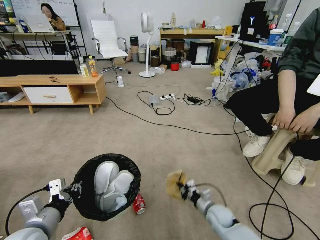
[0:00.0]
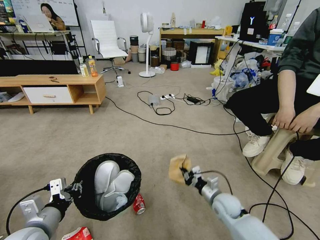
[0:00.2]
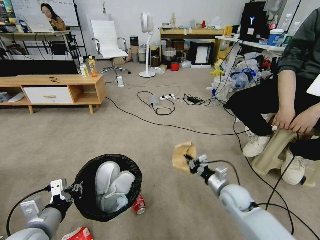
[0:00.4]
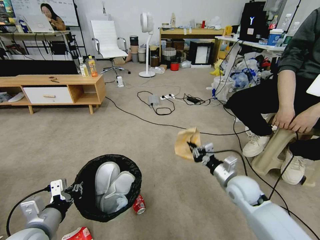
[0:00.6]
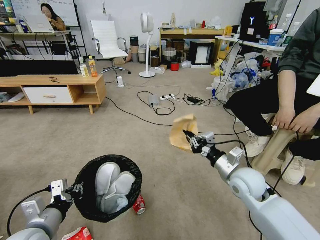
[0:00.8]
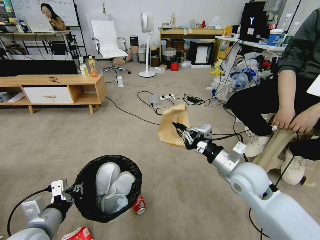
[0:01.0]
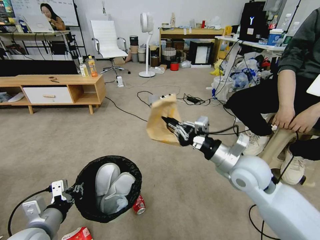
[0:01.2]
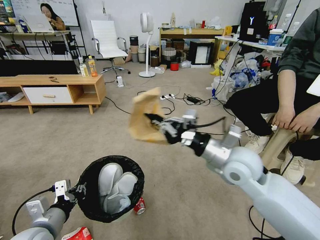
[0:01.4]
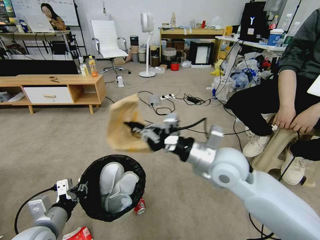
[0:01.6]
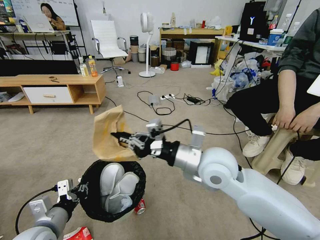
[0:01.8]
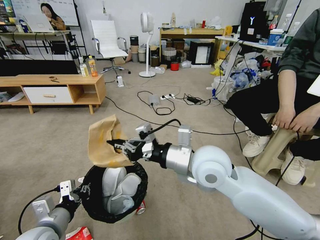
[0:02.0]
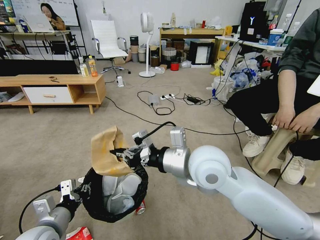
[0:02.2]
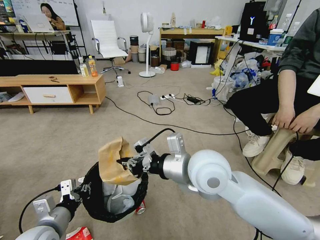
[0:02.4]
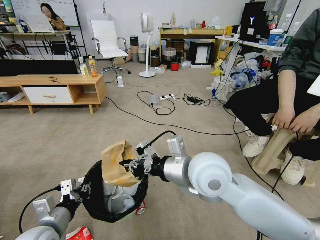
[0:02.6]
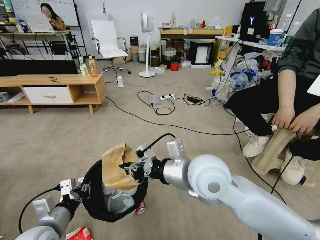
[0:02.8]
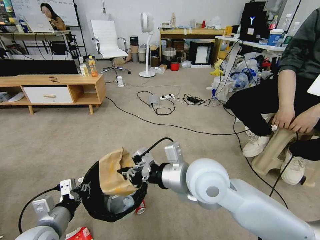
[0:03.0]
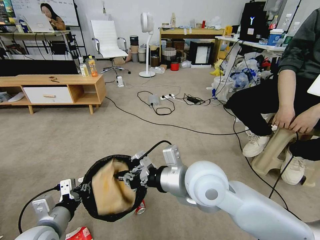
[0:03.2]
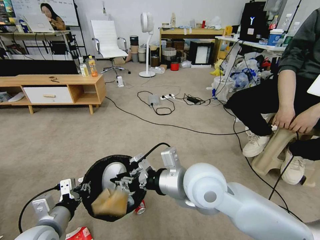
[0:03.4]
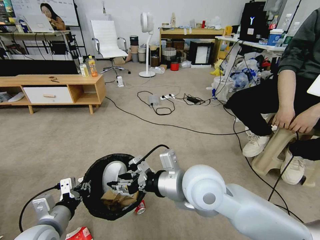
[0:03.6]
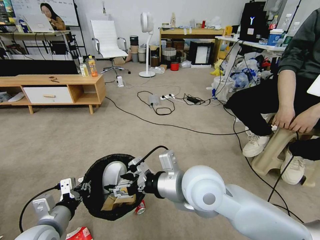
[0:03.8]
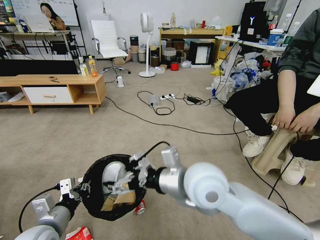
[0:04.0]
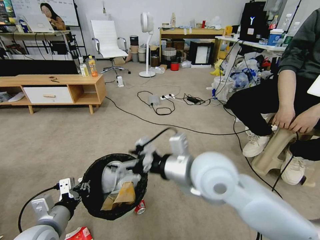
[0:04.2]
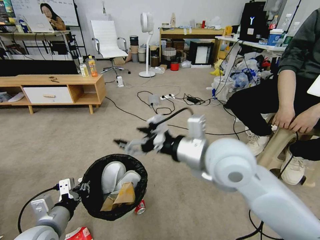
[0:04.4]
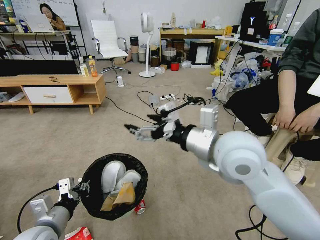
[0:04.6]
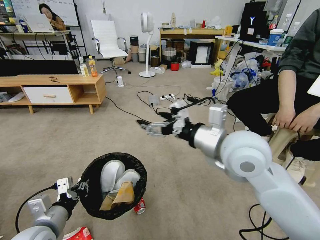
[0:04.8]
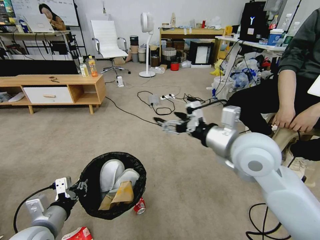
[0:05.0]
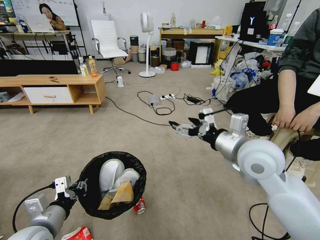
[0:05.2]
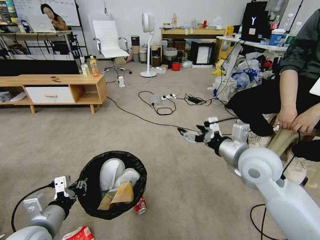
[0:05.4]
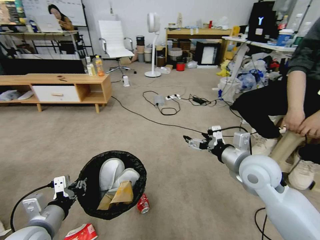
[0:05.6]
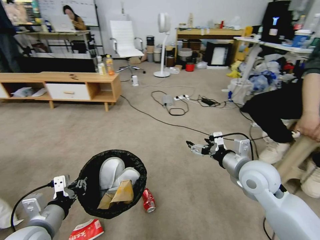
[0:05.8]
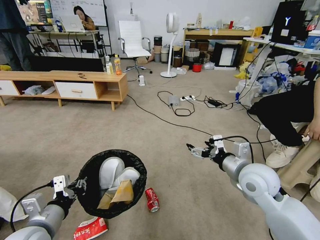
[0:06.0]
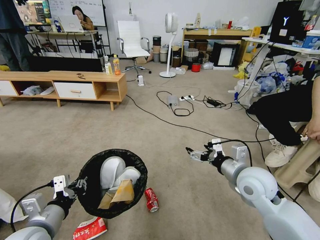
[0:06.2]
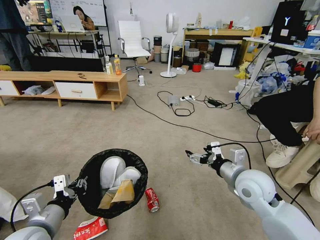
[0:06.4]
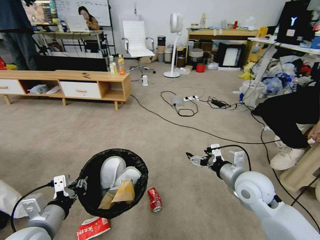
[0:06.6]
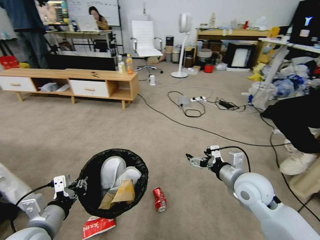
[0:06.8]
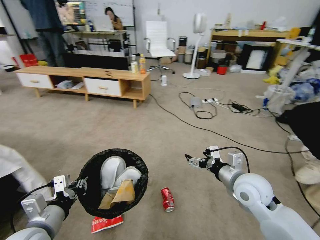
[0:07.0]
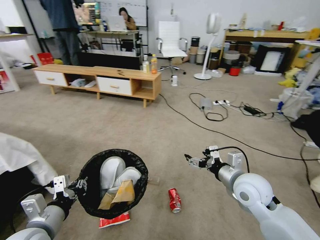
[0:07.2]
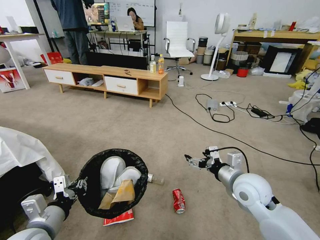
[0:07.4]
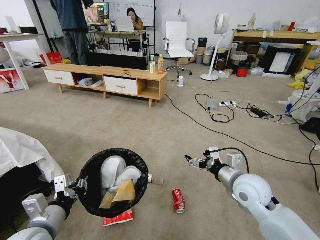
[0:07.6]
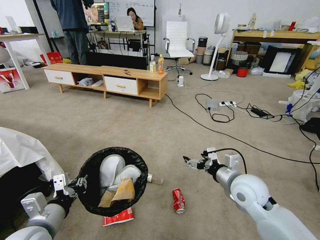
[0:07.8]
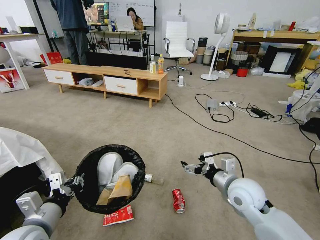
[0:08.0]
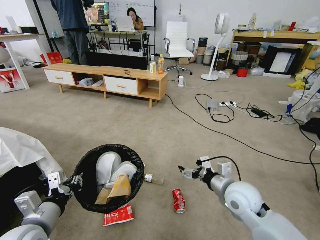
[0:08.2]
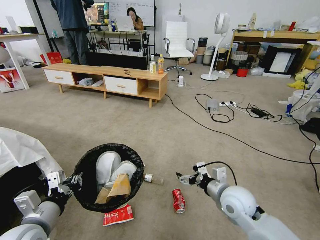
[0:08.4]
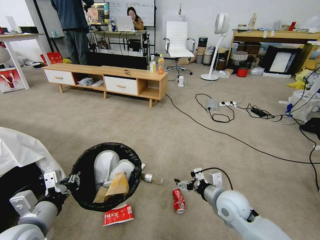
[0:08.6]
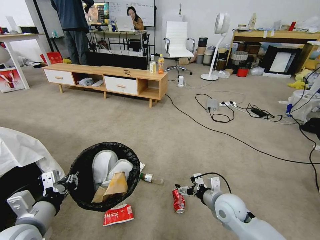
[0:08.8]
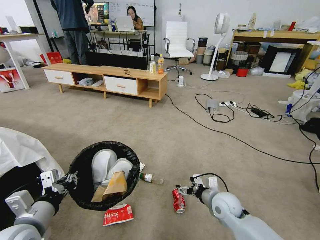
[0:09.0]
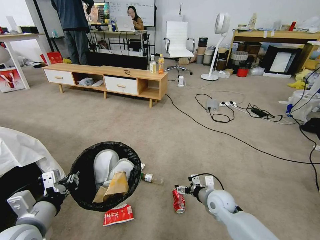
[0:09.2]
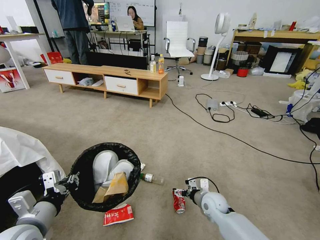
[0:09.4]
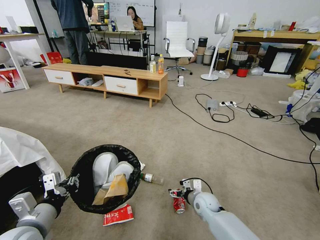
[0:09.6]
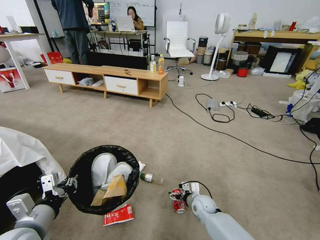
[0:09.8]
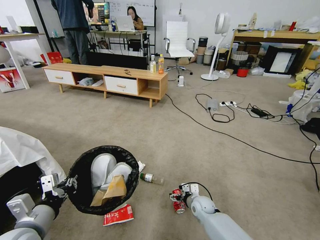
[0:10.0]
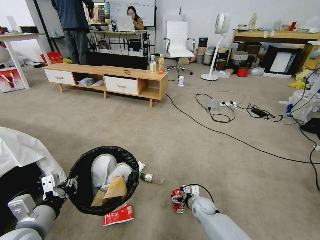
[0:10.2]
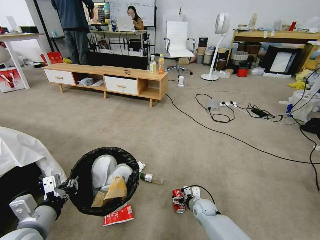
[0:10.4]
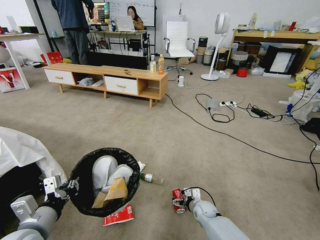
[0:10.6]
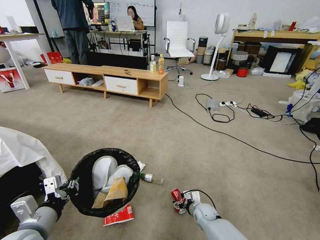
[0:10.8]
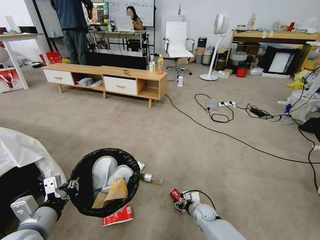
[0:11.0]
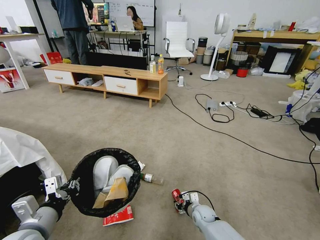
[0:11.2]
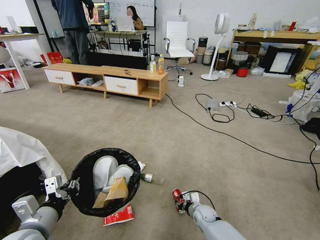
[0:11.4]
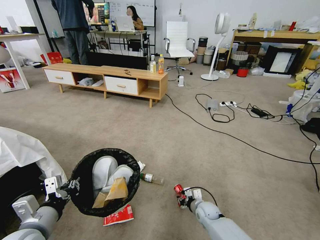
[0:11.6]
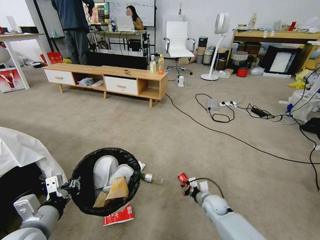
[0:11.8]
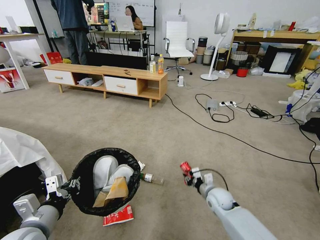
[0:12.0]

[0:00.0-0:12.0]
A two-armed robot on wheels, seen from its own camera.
Task of the whole recording: Pick up the trash bin and place the garbage on the floor into it.
0:00.0 to 0:01.6: The right gripper heads upward, covering roughly 35 cm.
0:01.6 to 0:03.0: The right gripper travels to the left by roughly 5 cm.
0:03.0 to 0:04.4: The right gripper shifts some 5 cm upward, and opens.
0:04.4 to 0:06.0: The right gripper moves downward and to the right, about 20 cm.
0:07.6 to 0:09.0: The right gripper goes some 15 cm downward.
0:09.0 to 0:10.4: The right gripper heads downward, covering about 15 cm.
0:10.4 to 0:12.0: The right gripper heads upward, covering approximately 10 cm, and closes up.

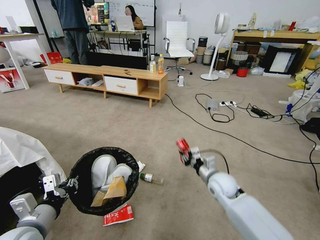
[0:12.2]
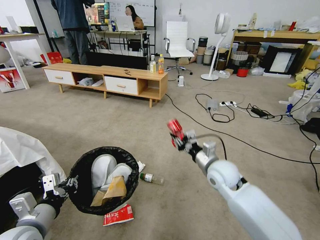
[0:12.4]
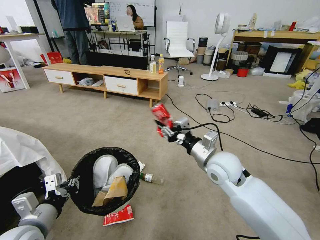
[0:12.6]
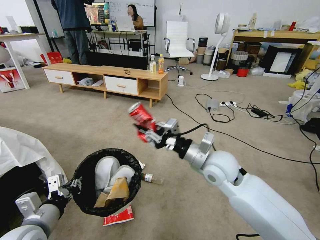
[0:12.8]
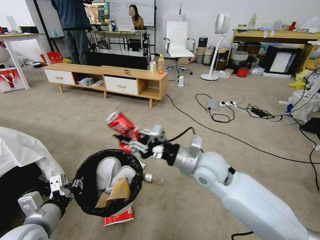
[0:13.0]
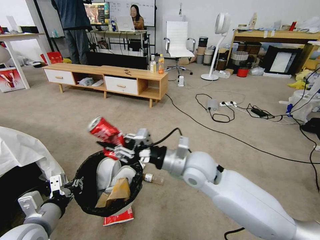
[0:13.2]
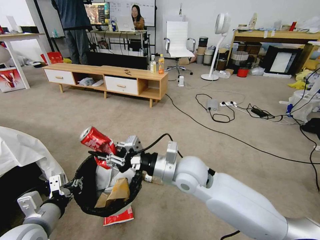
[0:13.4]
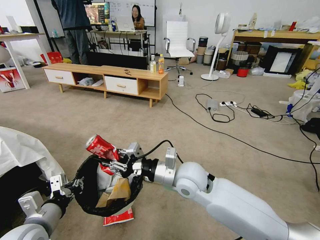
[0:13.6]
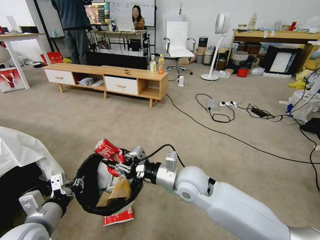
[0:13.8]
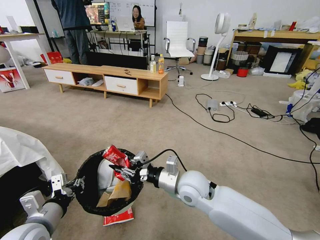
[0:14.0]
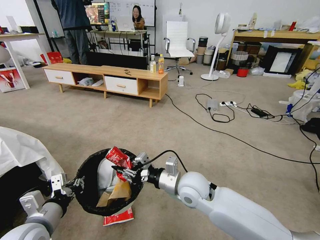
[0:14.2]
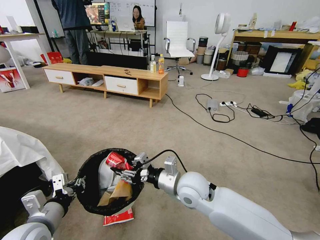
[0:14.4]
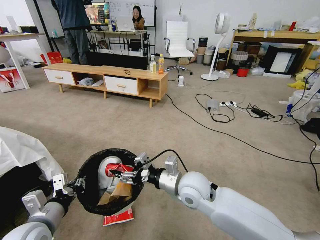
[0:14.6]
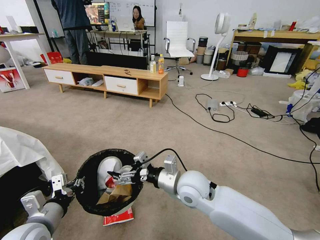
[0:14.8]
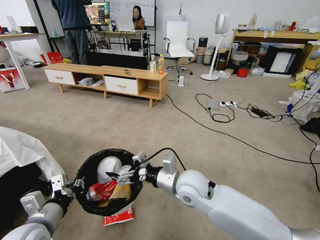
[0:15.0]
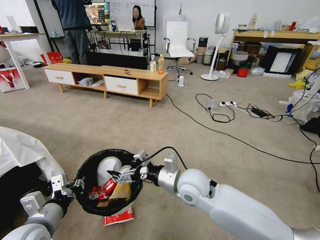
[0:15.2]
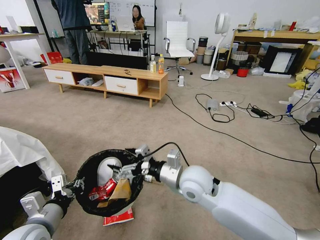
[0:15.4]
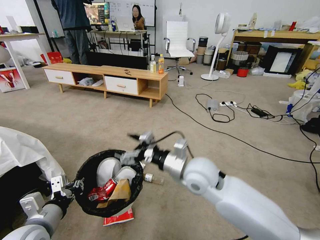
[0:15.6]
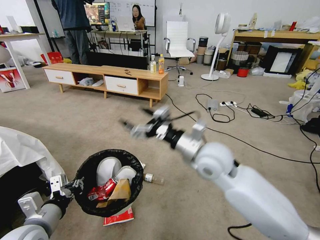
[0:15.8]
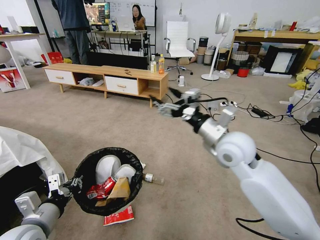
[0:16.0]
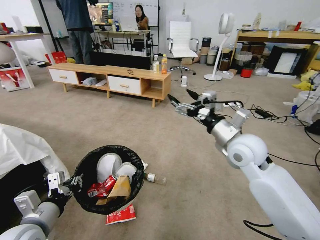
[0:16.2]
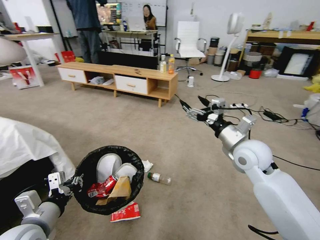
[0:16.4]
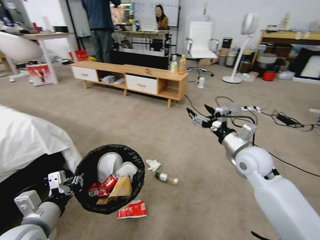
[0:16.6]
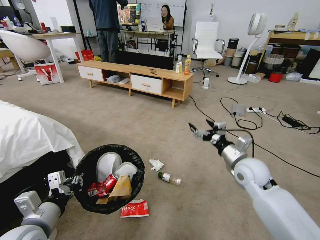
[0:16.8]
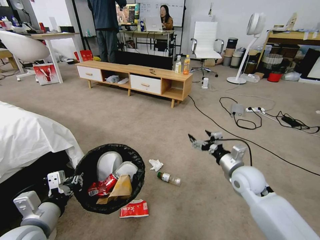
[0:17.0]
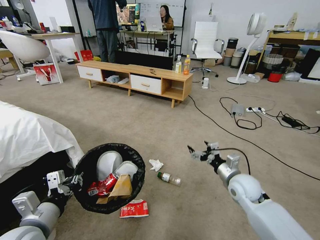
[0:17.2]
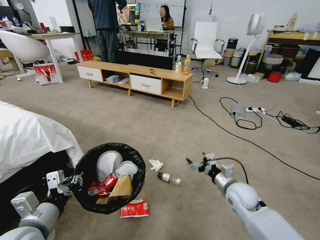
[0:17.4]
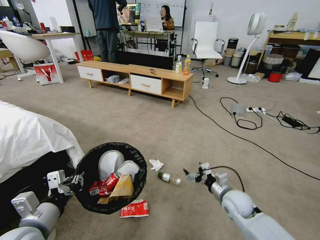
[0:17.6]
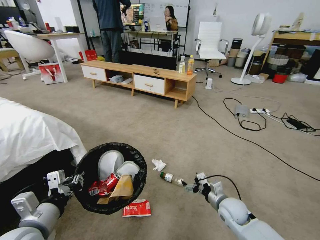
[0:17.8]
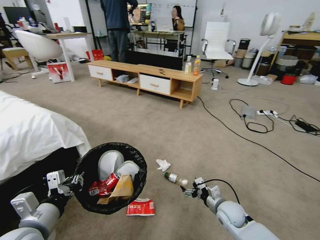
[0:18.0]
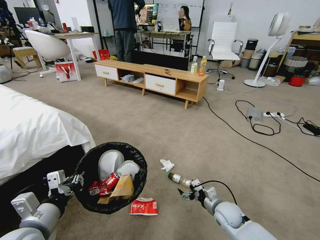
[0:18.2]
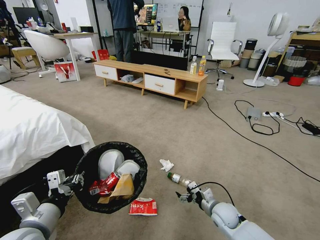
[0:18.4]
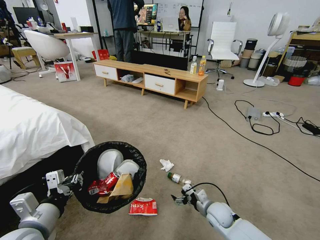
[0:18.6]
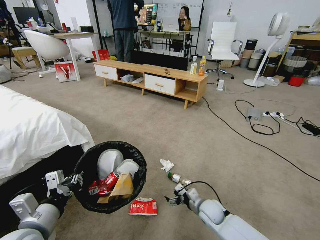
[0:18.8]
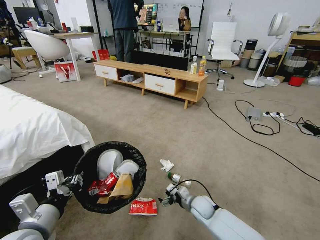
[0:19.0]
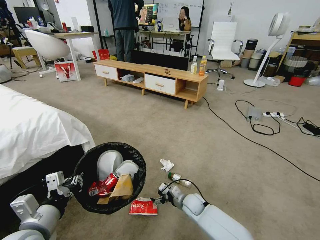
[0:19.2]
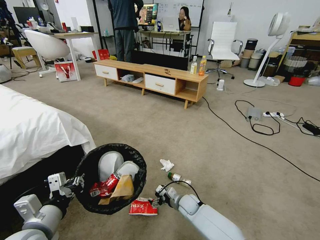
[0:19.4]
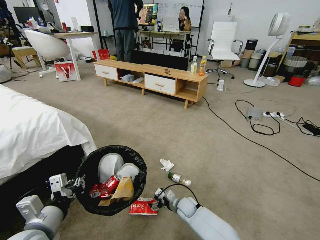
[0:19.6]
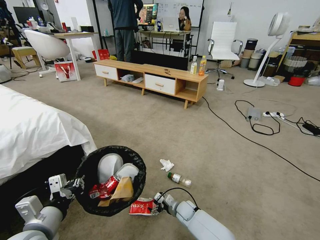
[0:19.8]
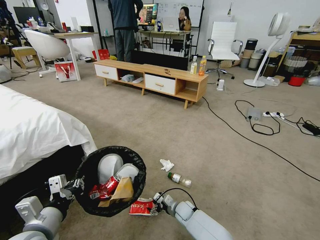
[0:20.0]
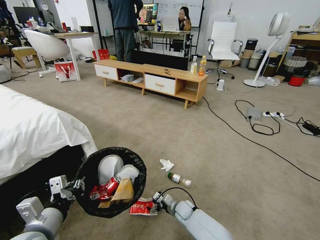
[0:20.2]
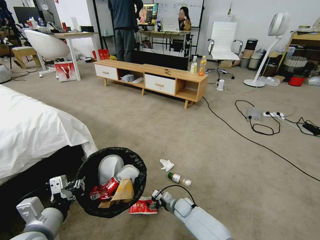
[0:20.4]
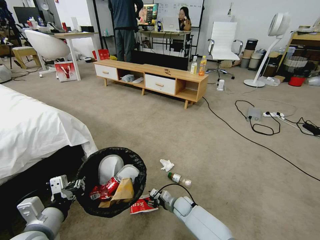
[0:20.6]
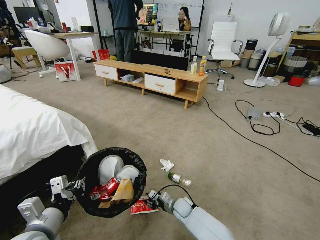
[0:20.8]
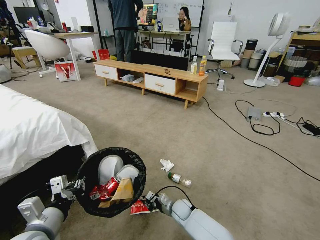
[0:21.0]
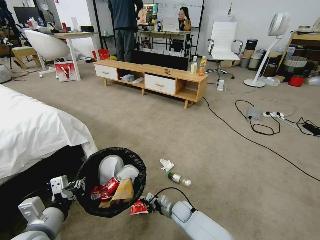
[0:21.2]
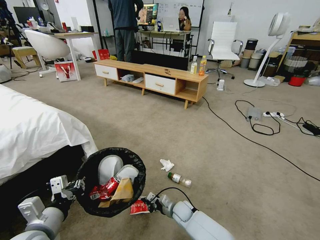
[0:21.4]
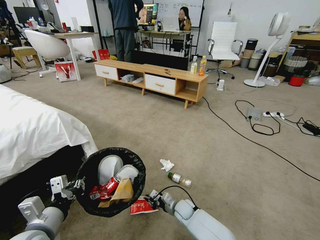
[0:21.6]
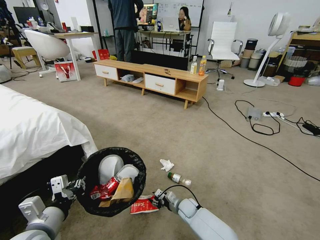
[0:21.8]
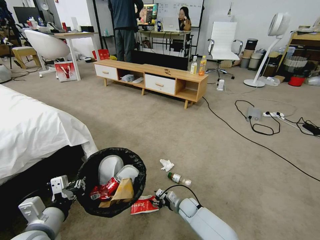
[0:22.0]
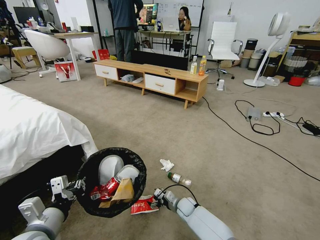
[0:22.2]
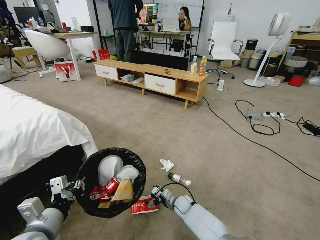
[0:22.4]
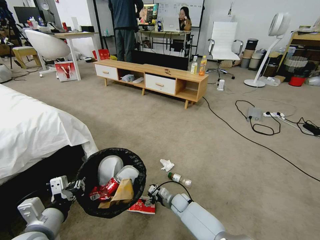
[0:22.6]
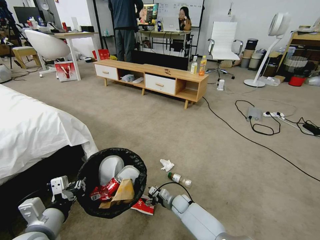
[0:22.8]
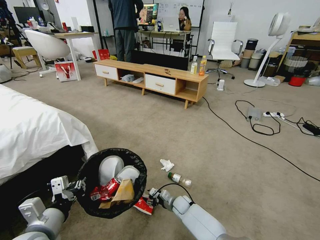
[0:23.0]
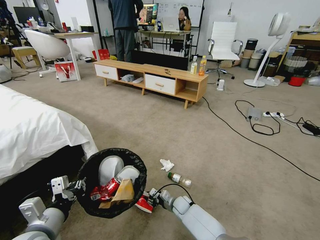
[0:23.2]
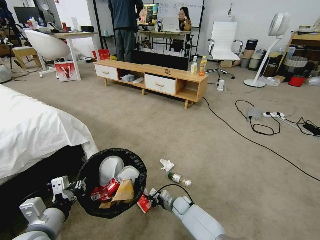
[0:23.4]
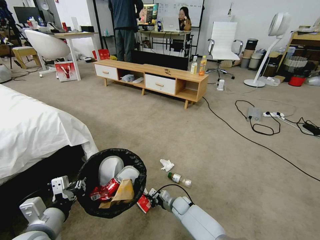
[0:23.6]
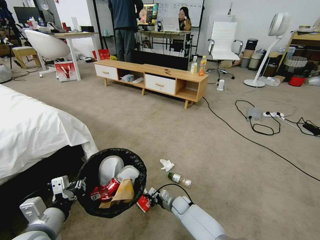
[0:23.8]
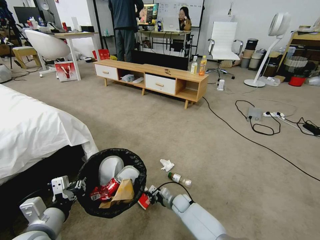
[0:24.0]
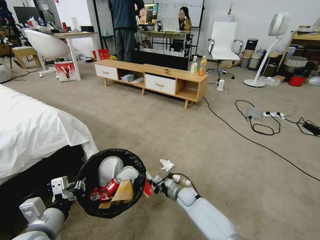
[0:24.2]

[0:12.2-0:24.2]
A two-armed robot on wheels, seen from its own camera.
Task of the whole recording: Pick up the trash bin and place the garbage on the floor into it.
0:12.2 to 0:13.8: The right gripper shifts roughly 20 cm to the left and upward.
0:13.8 to 0:15.2: The right gripper opens its fingers.
0:15.2 to 0:16.6: The right gripper goes some 20 cm to the right.
0:16.6 to 0:18.2: The right gripper shifts approximately 20 cm downward.
0:18.2 to 0:19.8: The right gripper is displaced downward and to the left by approximately 20 cm.
0:19.8 to 0:21.2: The right gripper closes its fingers.
0:21.2 to 0:22.6: The right gripper opens.
0:22.6 to 0:24.2: The right gripper closes up.
